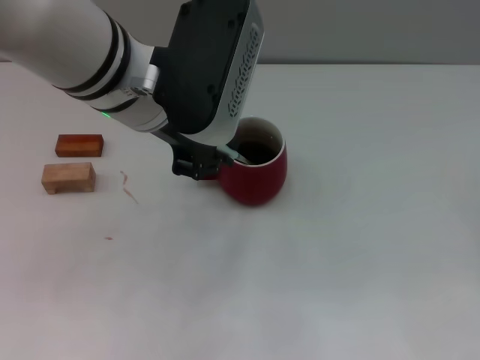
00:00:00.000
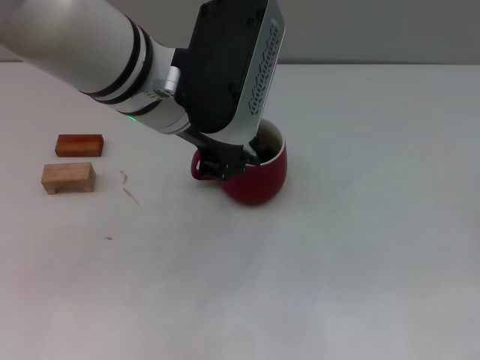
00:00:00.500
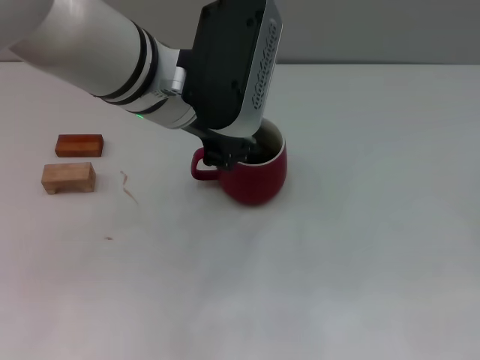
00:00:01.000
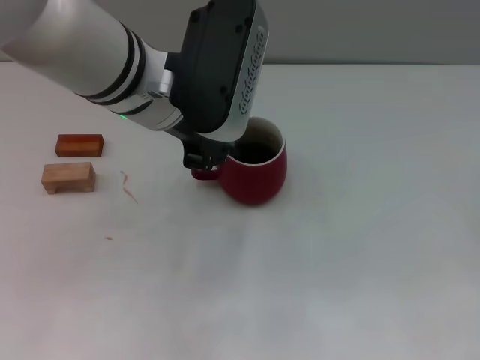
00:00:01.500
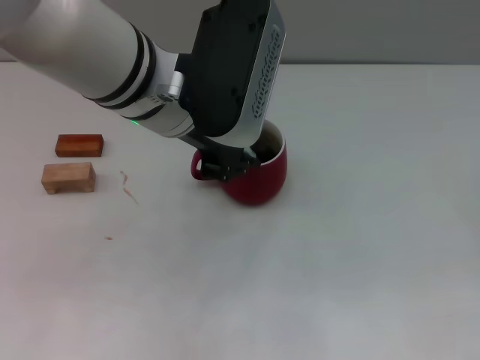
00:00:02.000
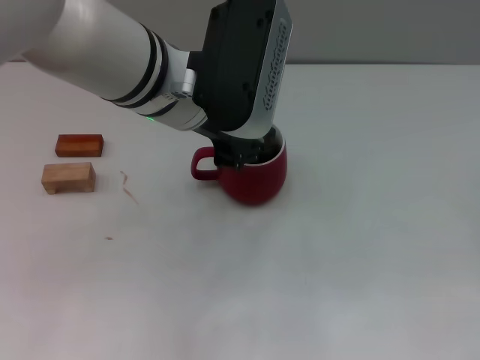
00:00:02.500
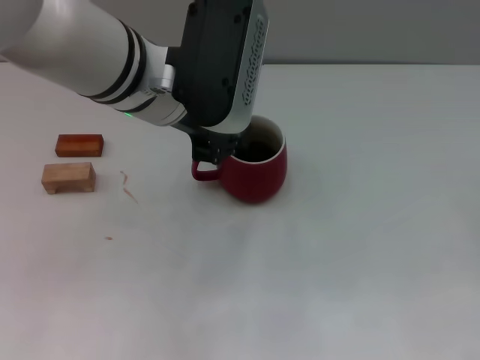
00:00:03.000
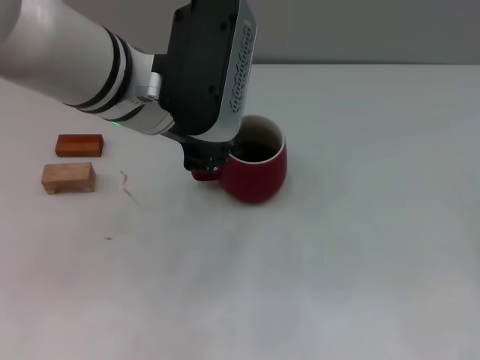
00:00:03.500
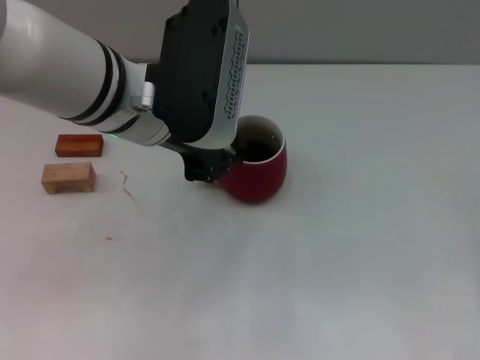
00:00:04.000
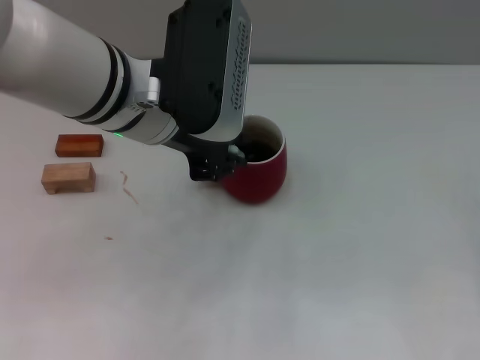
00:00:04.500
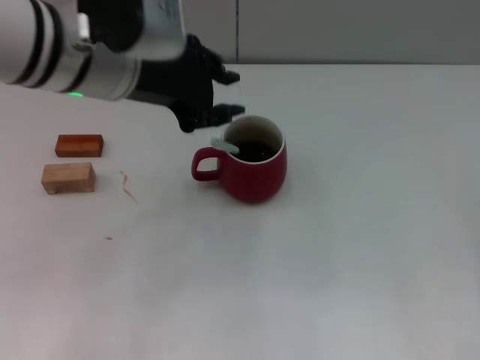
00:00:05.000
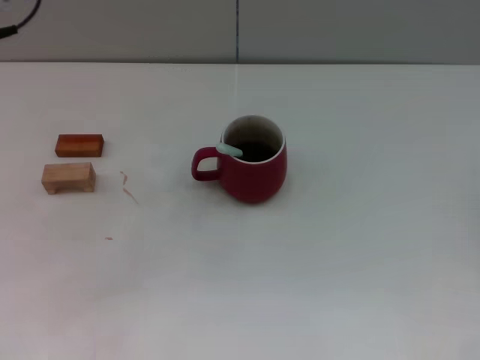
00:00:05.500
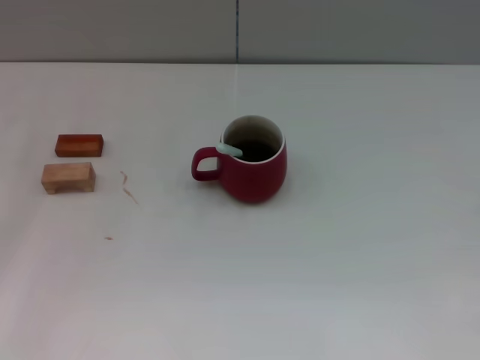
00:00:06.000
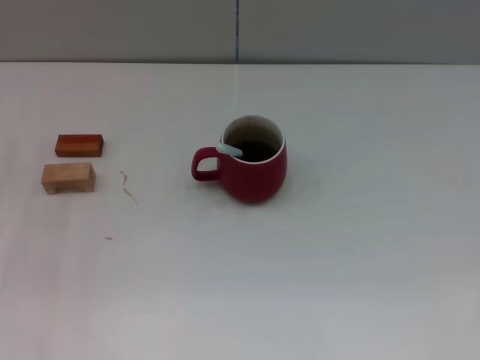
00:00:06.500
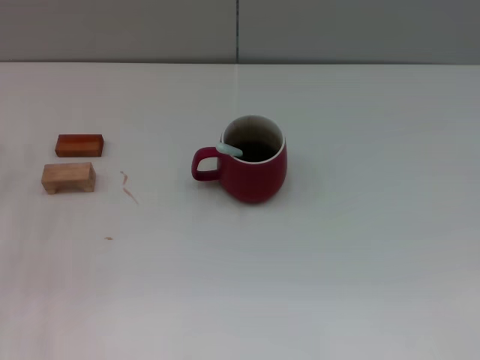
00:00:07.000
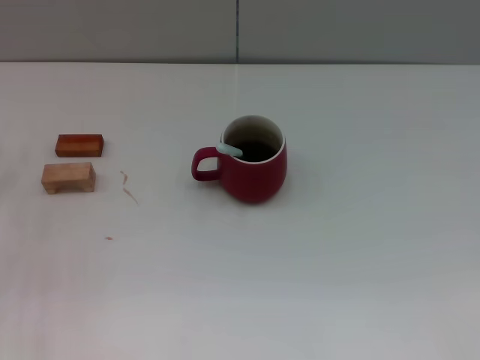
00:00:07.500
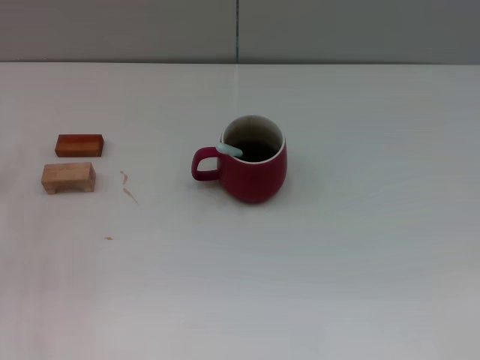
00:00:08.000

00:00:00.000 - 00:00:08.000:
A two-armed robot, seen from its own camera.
Task of the whole recording: Move the red cup to the center, lift the blue spoon, stir it three times in the cup, and put the spoon into the cup.
Step, 00:00:00.000 - 00:00:04.500: Stir the coffee in the cup with the left gripper.
00:00:00.000 - 00:00:04.000: There are only small adjustments of the grippers.
00:00:04.000 - 00:00:06.000: The left gripper is displaced to the left by approximately 25 cm.
